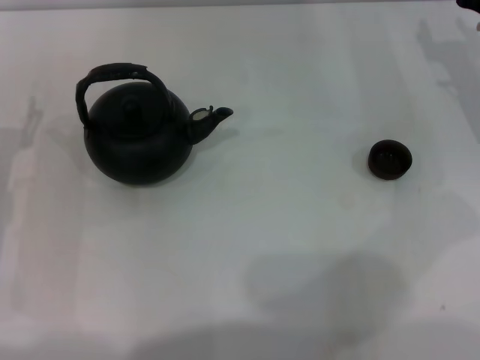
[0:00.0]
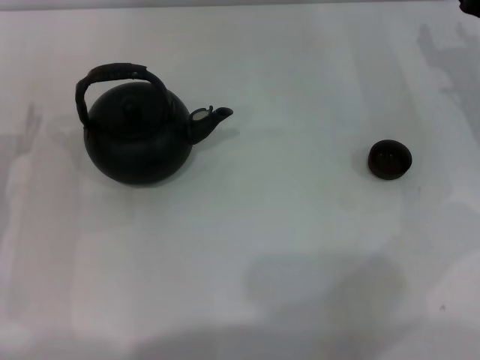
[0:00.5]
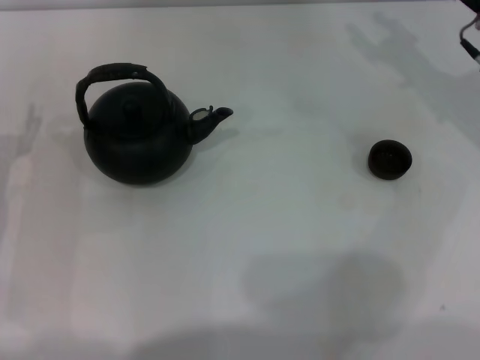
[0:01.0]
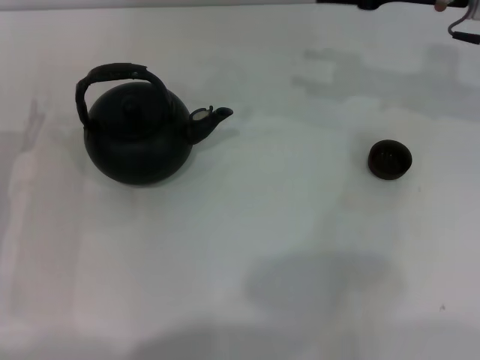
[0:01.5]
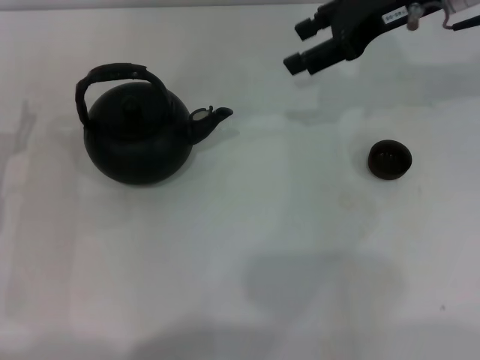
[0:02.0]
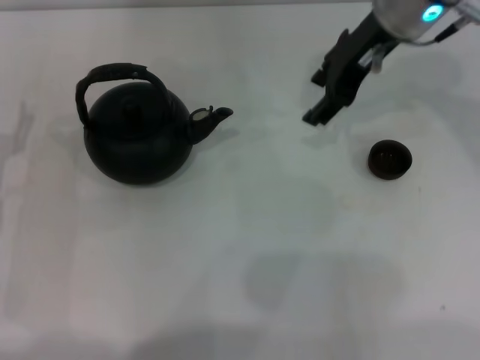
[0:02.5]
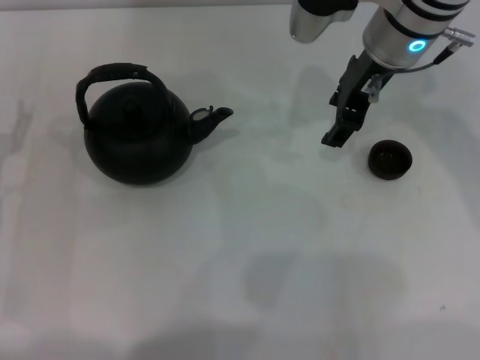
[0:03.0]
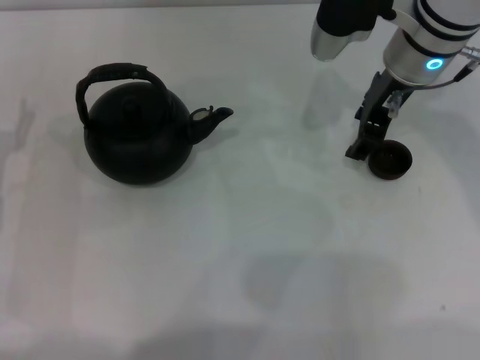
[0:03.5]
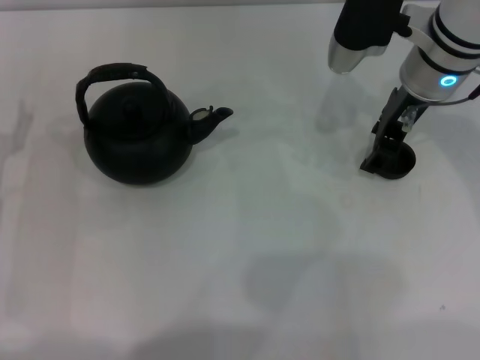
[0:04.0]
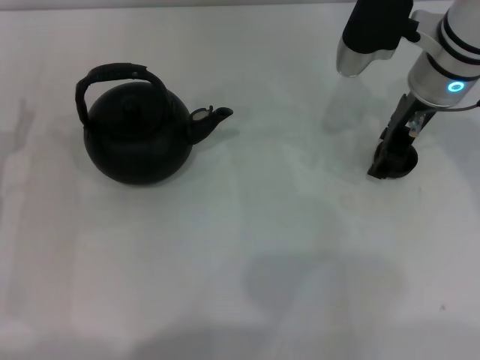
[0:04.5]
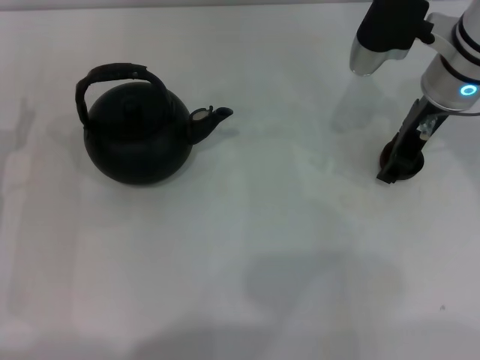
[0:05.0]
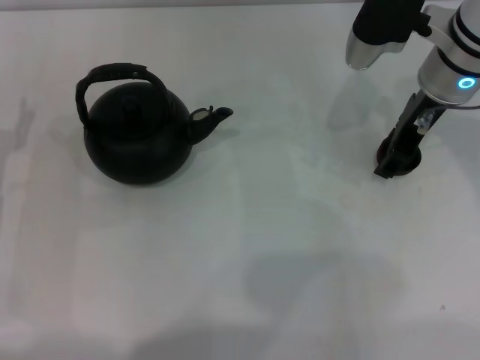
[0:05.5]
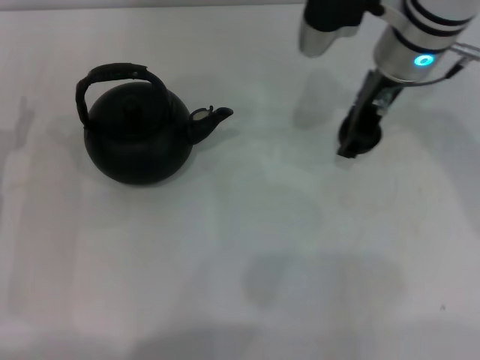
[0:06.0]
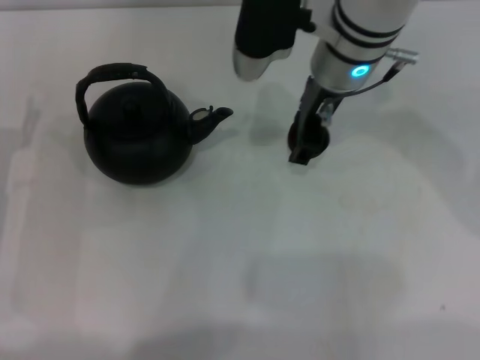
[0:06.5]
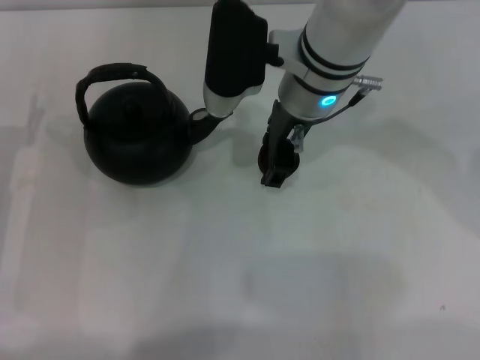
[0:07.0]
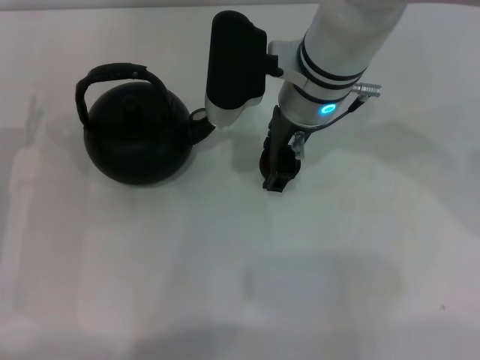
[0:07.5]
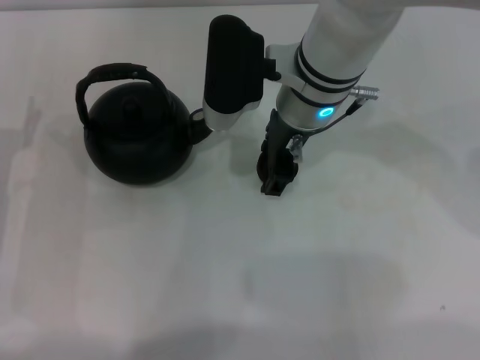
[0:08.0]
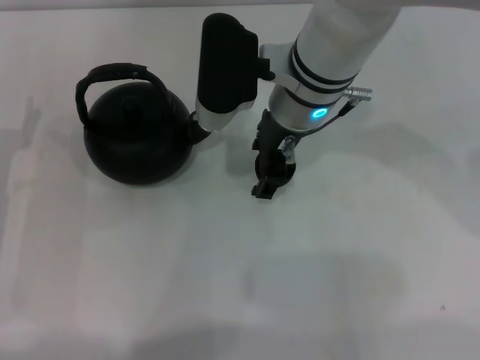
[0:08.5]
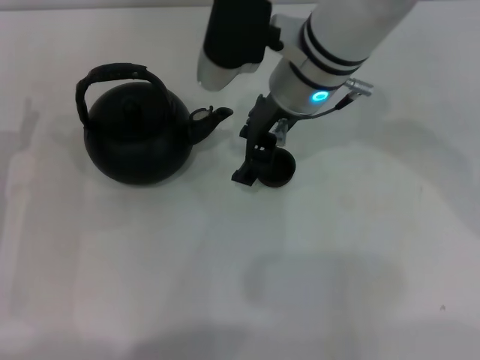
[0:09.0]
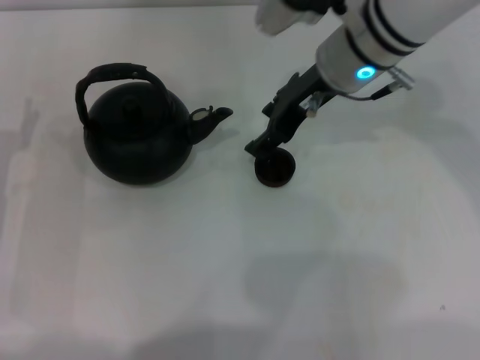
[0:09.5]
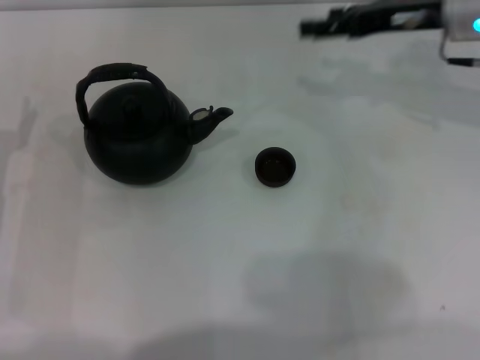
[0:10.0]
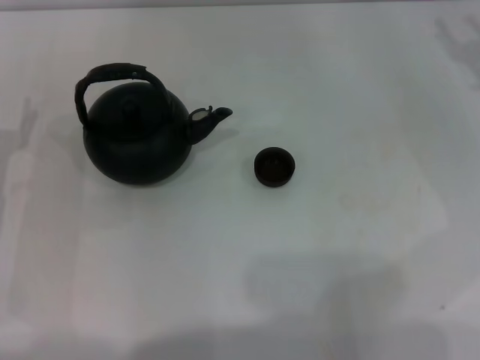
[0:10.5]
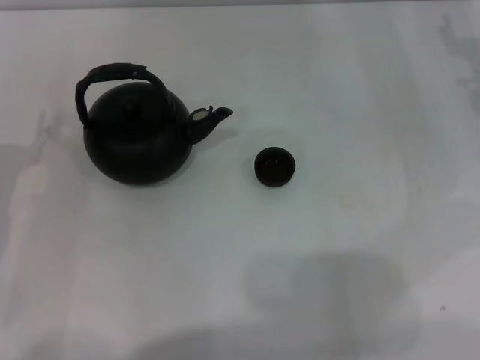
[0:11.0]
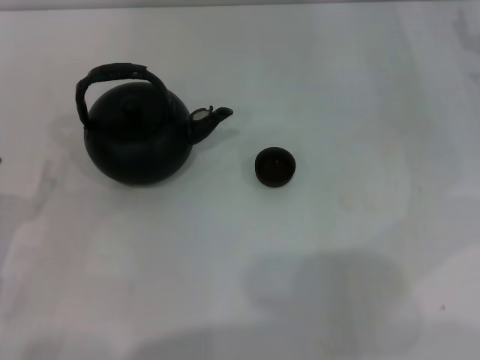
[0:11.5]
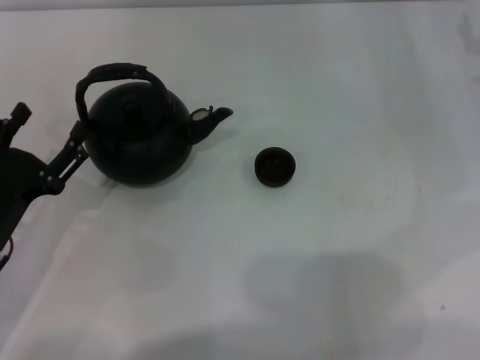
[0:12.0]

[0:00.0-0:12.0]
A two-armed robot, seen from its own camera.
Task of the whole recording: Grasp the handle of the teapot with one hand and pour tea into the teacup.
Step, 0:00.0 to 0:05.5: Pick up the teacup with the right gripper.
Step, 0:06.0 to 0:09.5: Place the teacup in the center of view with the right gripper.
0:00.0 to 0:02.0: The right gripper travels upward and to the left by about 15 cm.
0:02.0 to 0:04.0: The right gripper heads downward, covering about 5 cm.
0:04.0 to 0:06.0: The grippers move only a little.
0:06.0 to 0:08.0: The right gripper goes about 10 cm to the left.
0:08.0 to 0:10.0: The right gripper heads to the right, covering some 20 cm.
0:10.0 to 0:12.0: The left gripper travels backward by approximately 5 cm; the right gripper moves to the right and downward, some 15 cm.

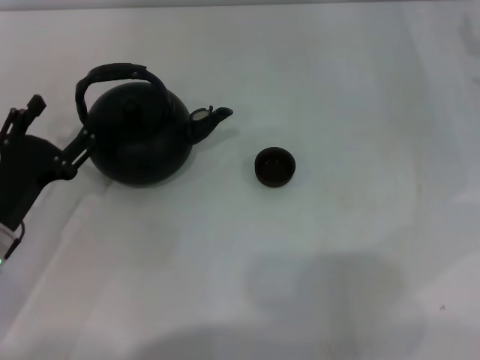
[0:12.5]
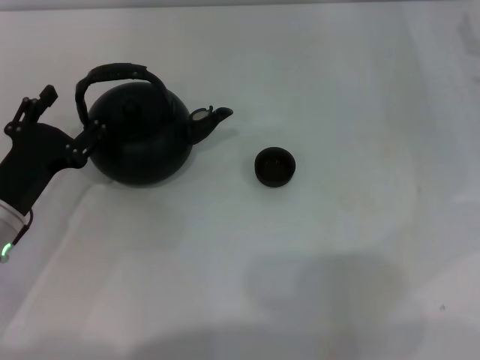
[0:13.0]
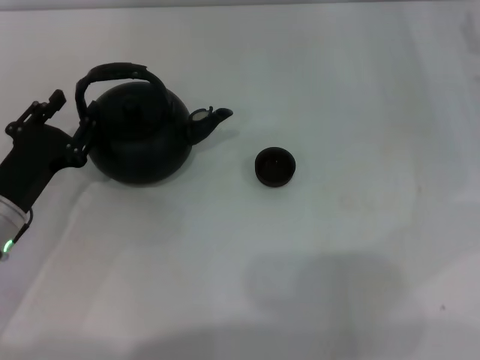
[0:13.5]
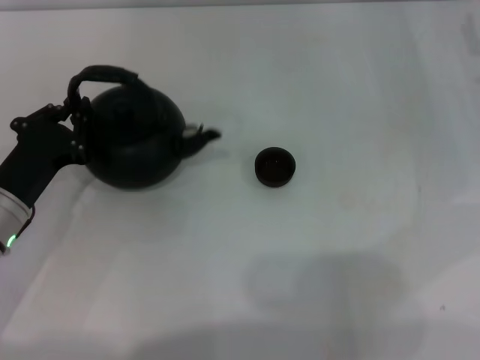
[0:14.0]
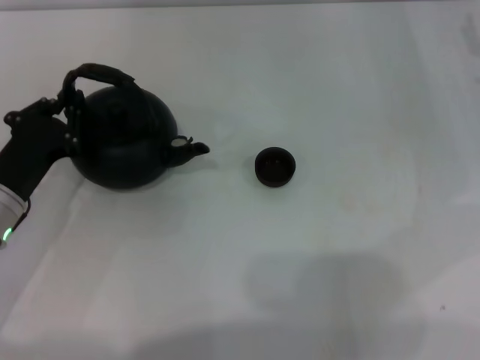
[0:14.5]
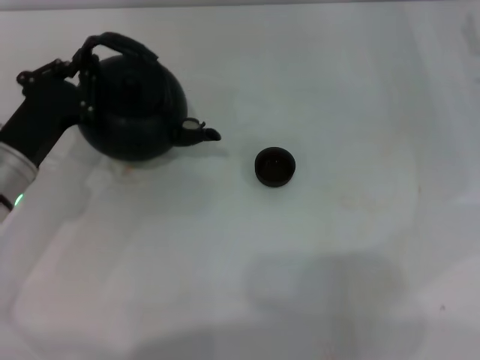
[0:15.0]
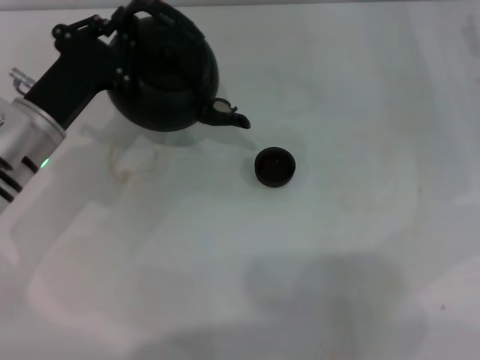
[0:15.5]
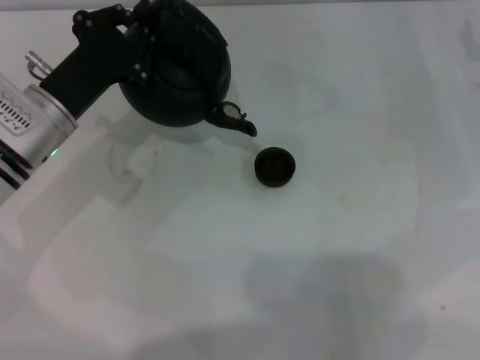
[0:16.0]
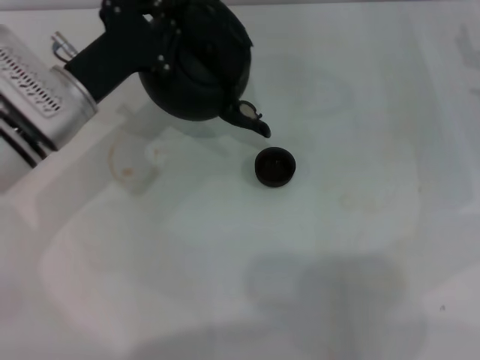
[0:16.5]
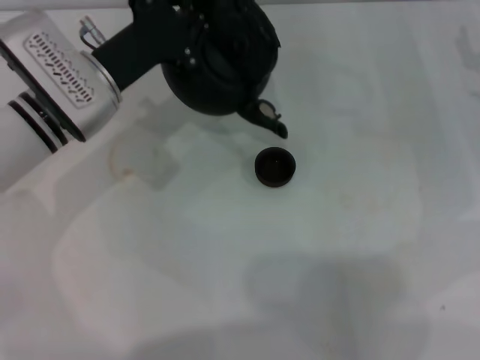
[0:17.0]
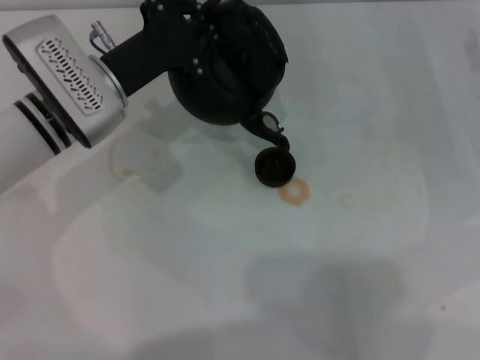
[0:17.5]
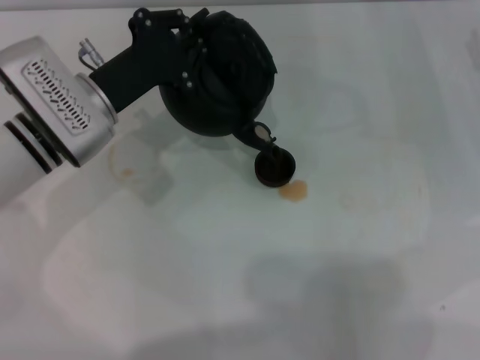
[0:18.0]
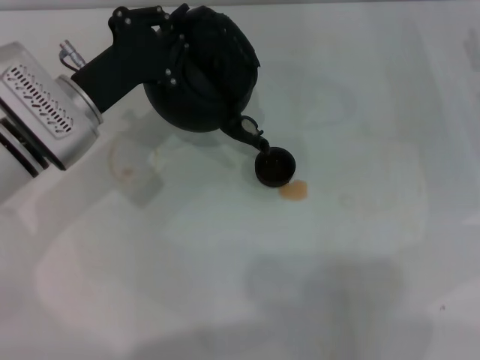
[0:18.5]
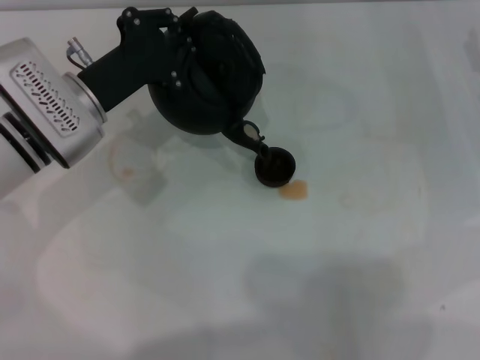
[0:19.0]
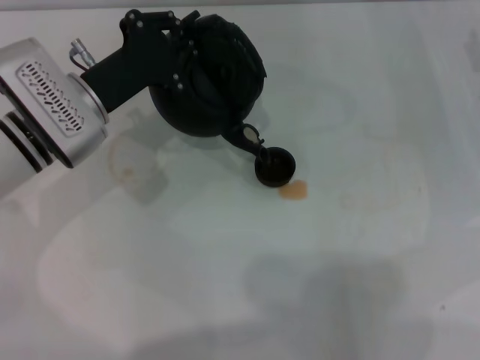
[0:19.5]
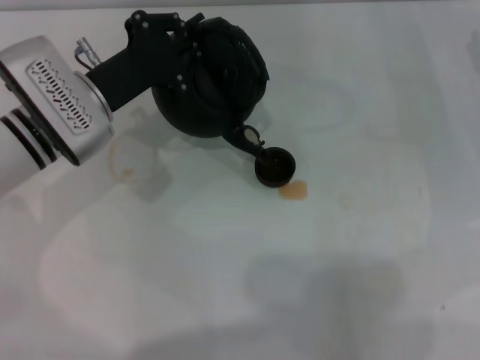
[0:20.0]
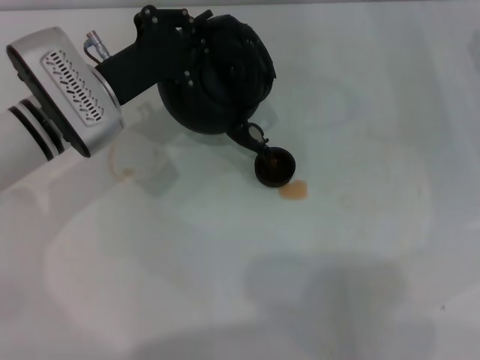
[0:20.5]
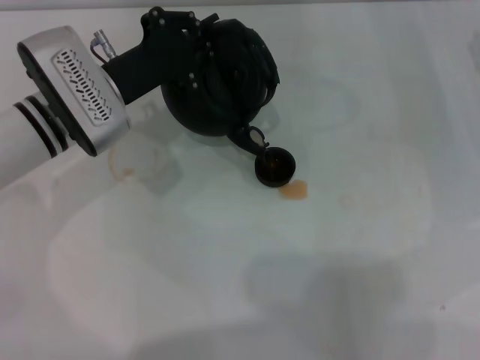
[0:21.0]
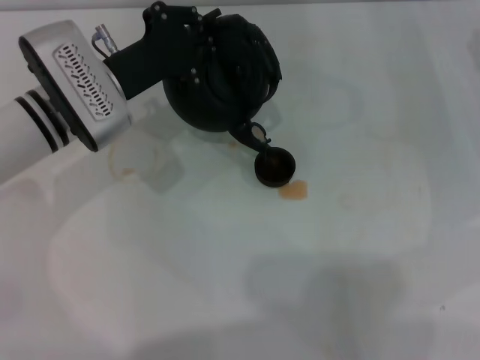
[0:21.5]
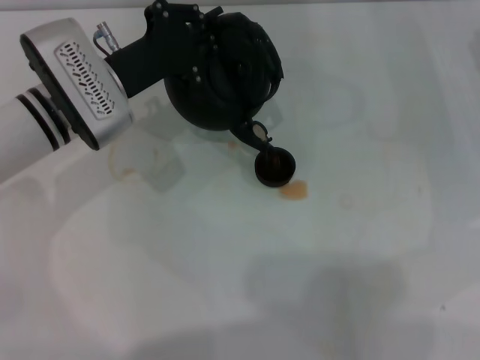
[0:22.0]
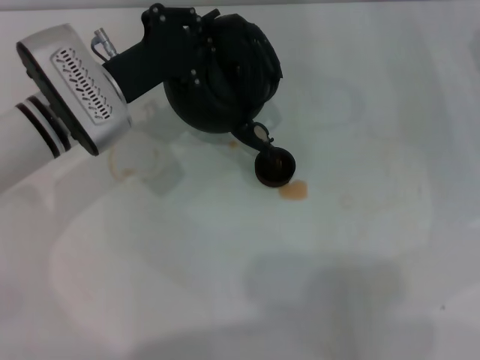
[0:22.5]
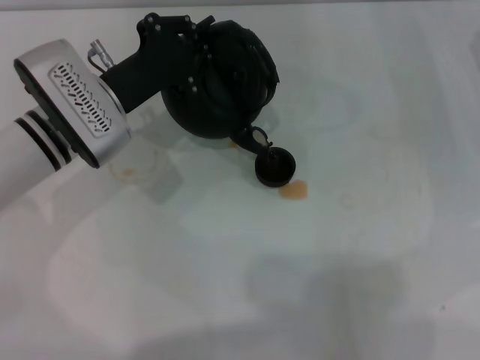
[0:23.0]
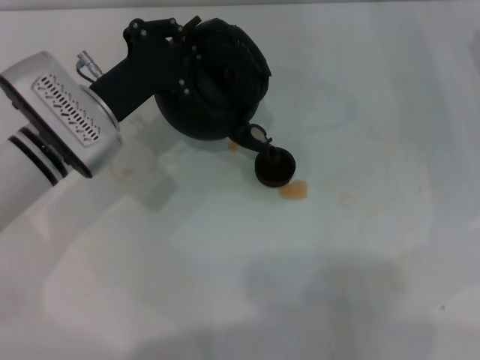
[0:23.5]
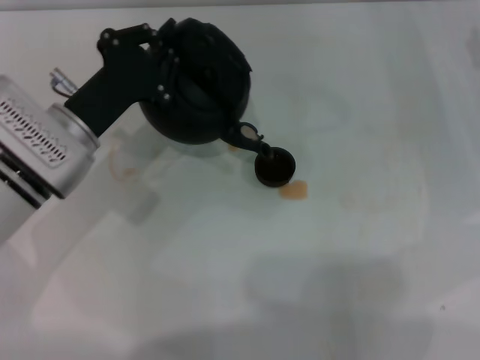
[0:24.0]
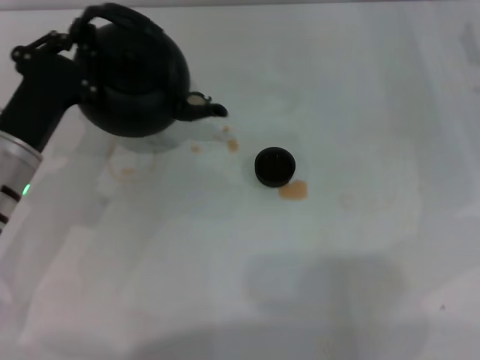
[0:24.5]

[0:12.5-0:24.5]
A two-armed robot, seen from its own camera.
Task of the whole recording: Grasp the handle of the teapot with one hand and pour tea into the teacup.
Step, 0:12.5 to 0:15.0: Pick up the teapot with the left gripper.
Step, 0:15.5 to 0:24.0: Pour tea into the teacup with the left gripper.
0:12.5 to 0:14.5: The left gripper closes its fingers.
0:14.5 to 0:16.5: The left gripper shifts roughly 15 cm forward, to the right and upward.
0:16.5 to 0:20.5: The grippers make only small movements.
0:20.5 to 0:22.5: The two grippers keep their place.
0:22.5 to 0:24.5: The left gripper is displaced backward and to the left by roughly 10 cm.

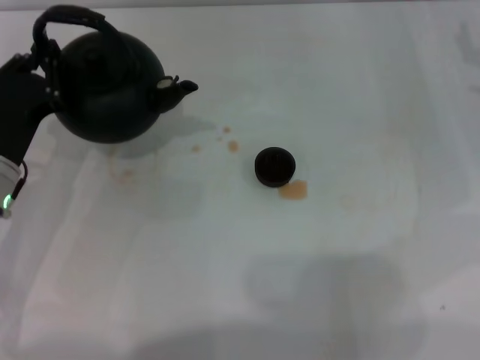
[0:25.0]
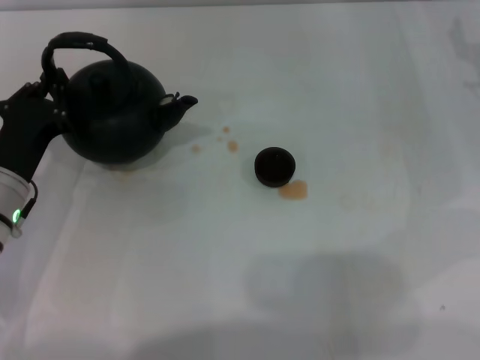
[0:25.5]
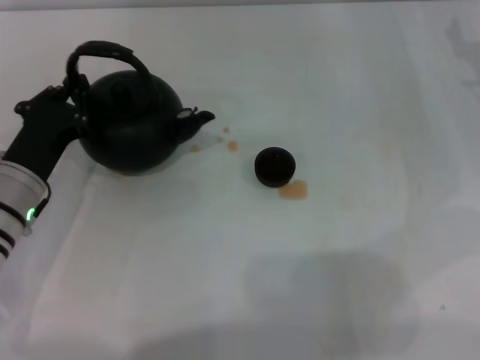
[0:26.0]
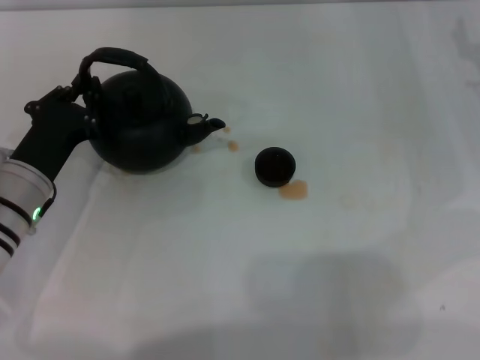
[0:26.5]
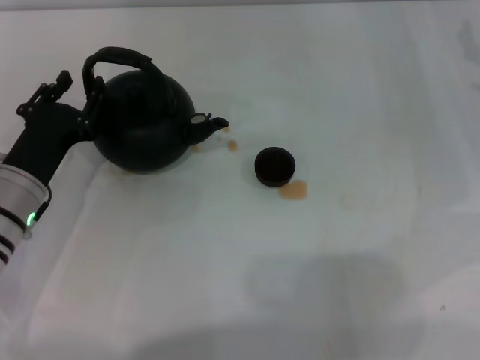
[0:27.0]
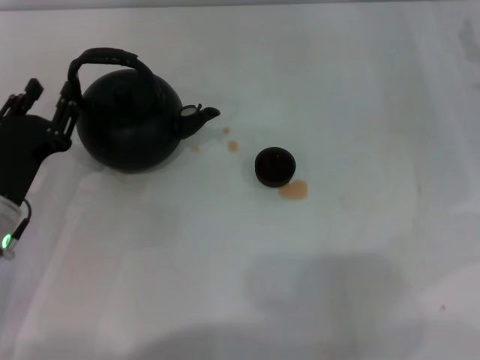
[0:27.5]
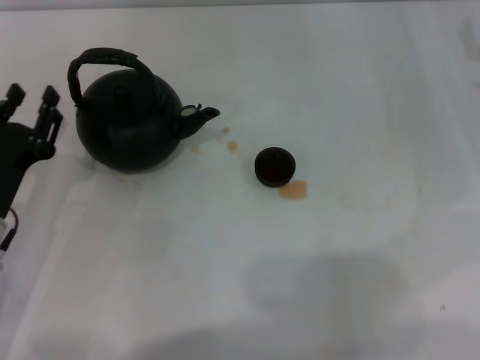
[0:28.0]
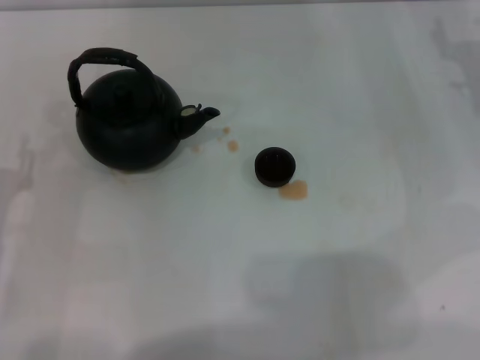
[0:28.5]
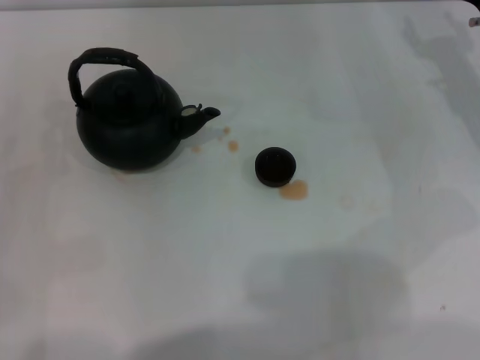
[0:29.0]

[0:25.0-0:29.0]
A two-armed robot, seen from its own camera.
Task of the whole recording: Grasp the handle of the teapot with one hand and pour tea into the teacup.
Step, 0:25.0 to 0:27.0: Put down the teapot with the left gripper.
0:25.0 to 0:27.0: The left gripper opens up.
0:27.0 to 0:29.0: The left gripper travels to the left and backward by about 10 cm.
